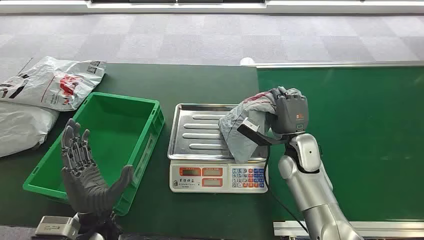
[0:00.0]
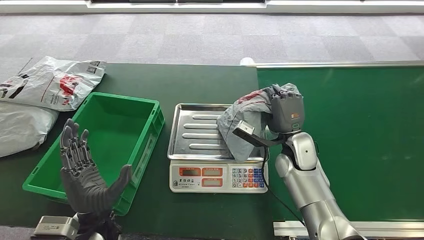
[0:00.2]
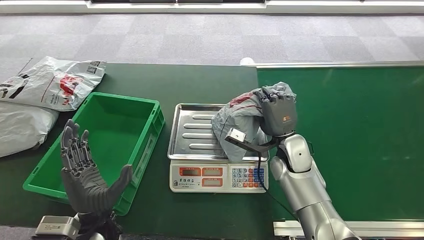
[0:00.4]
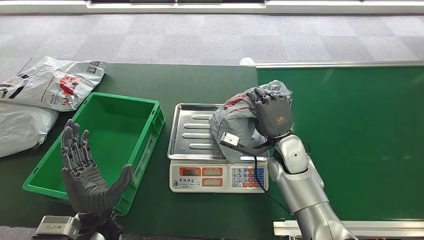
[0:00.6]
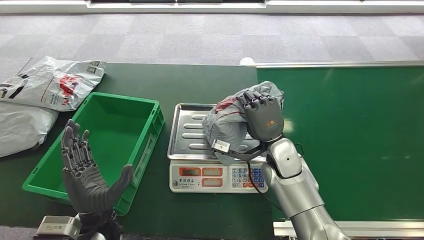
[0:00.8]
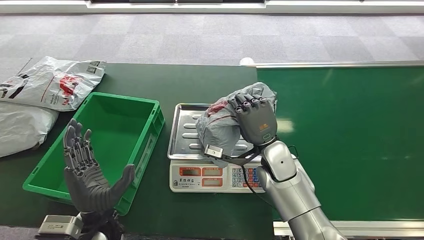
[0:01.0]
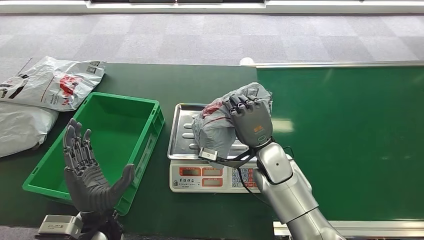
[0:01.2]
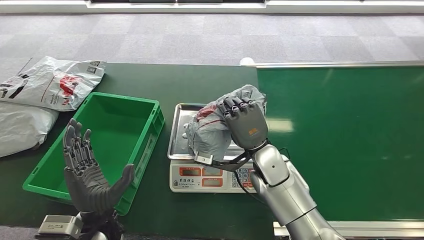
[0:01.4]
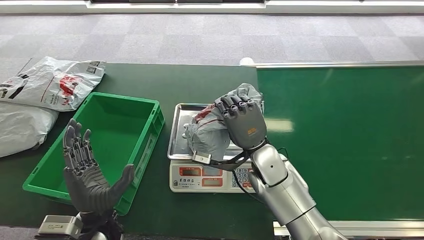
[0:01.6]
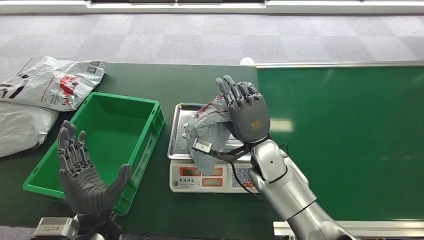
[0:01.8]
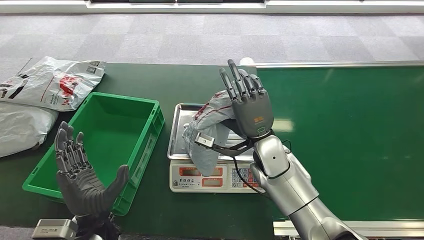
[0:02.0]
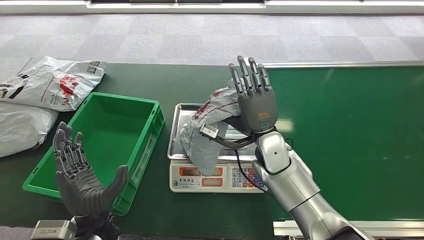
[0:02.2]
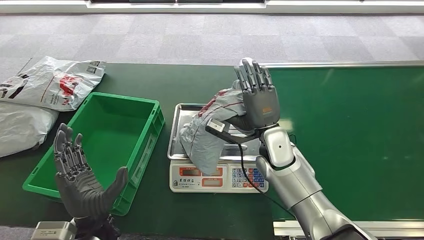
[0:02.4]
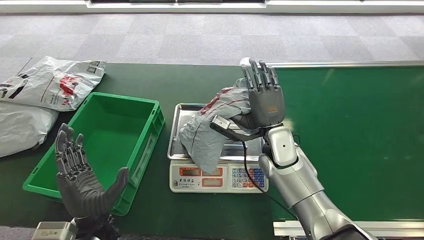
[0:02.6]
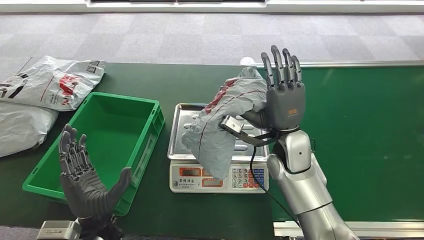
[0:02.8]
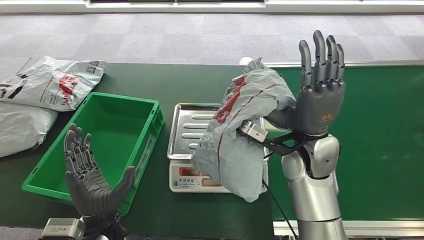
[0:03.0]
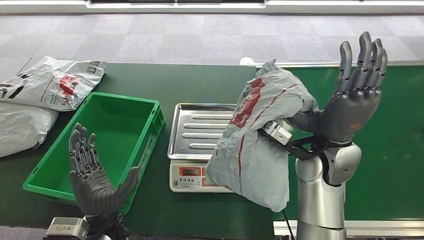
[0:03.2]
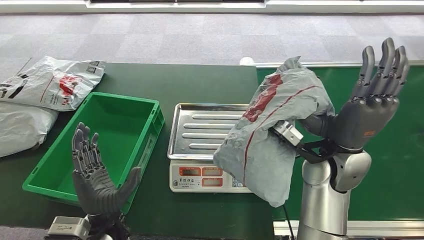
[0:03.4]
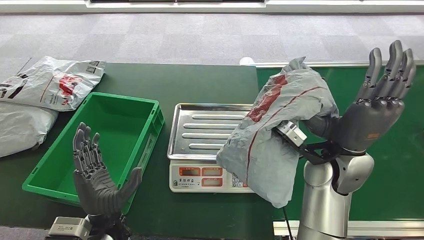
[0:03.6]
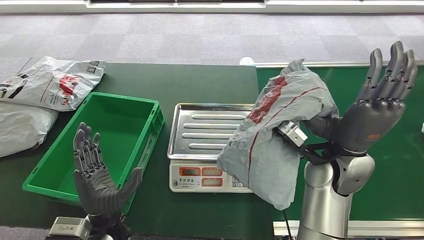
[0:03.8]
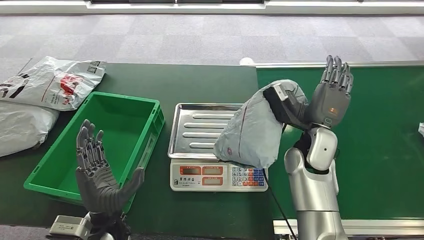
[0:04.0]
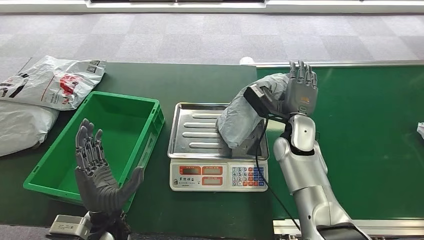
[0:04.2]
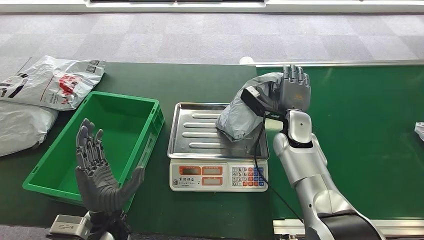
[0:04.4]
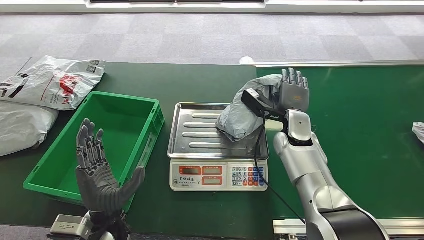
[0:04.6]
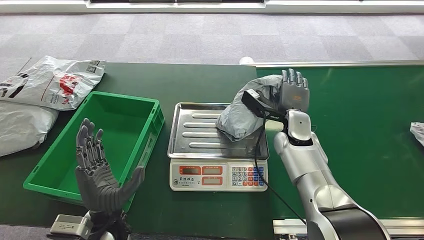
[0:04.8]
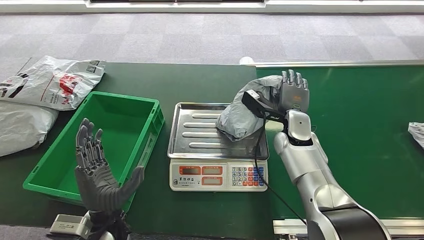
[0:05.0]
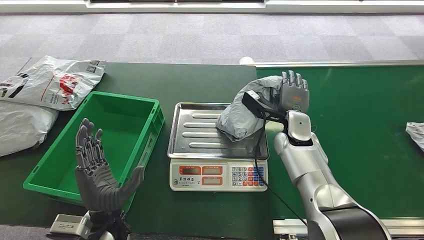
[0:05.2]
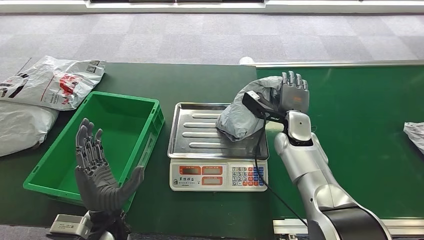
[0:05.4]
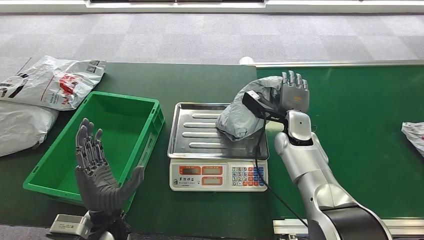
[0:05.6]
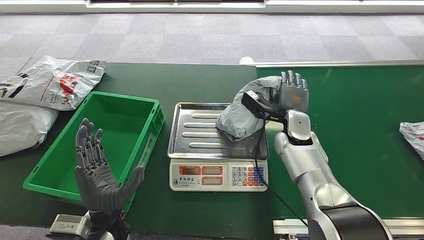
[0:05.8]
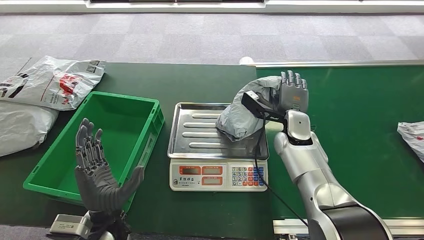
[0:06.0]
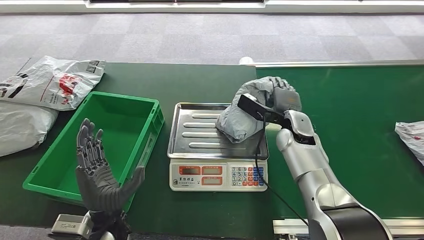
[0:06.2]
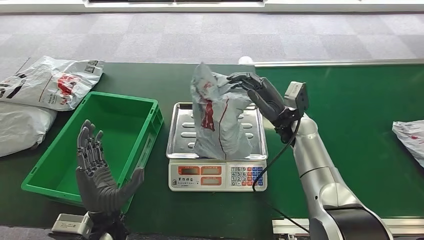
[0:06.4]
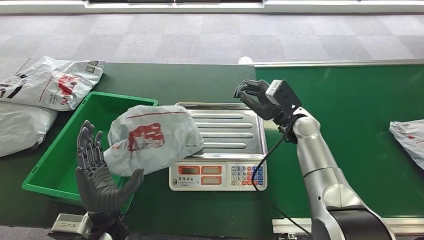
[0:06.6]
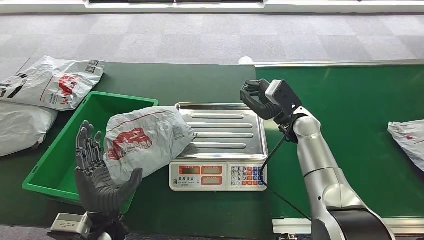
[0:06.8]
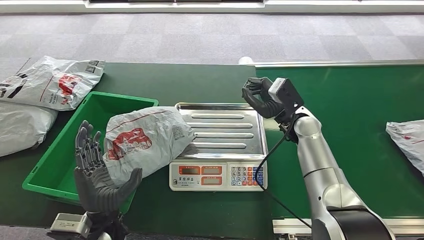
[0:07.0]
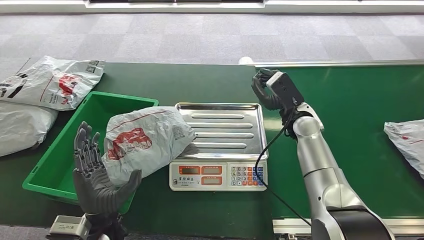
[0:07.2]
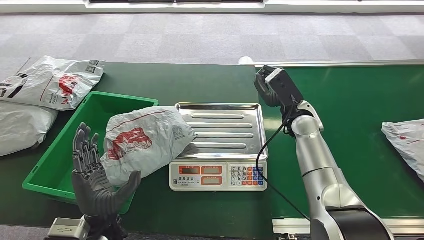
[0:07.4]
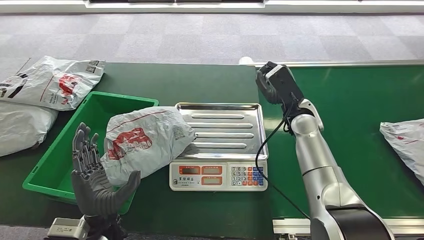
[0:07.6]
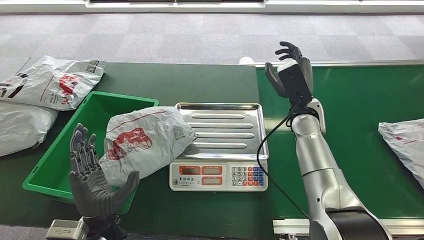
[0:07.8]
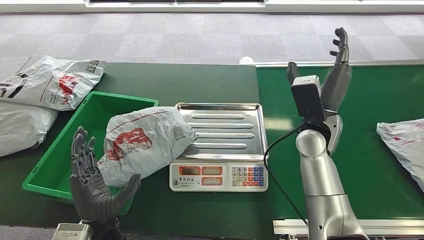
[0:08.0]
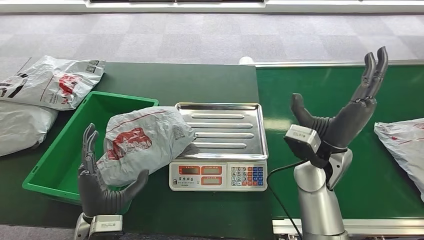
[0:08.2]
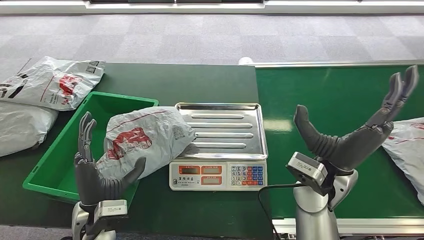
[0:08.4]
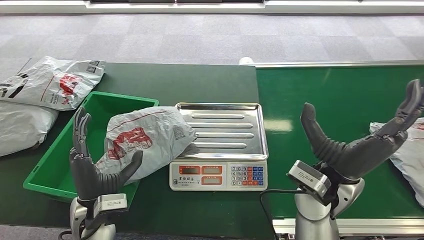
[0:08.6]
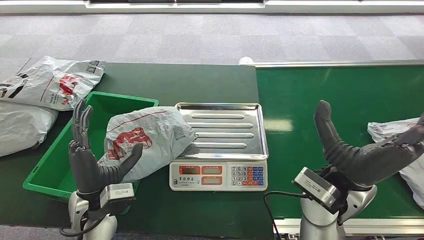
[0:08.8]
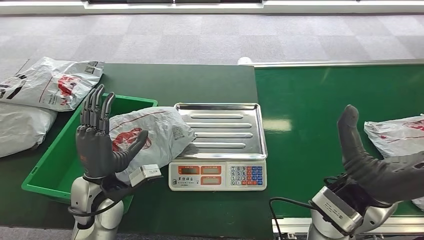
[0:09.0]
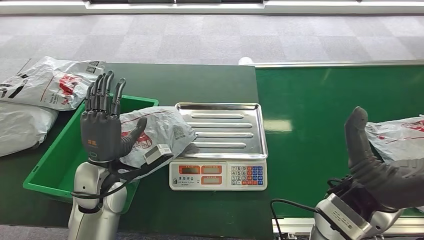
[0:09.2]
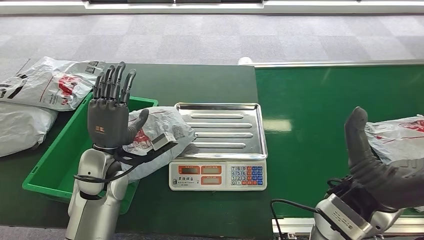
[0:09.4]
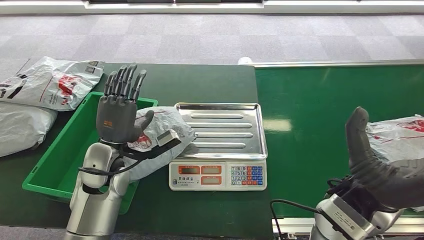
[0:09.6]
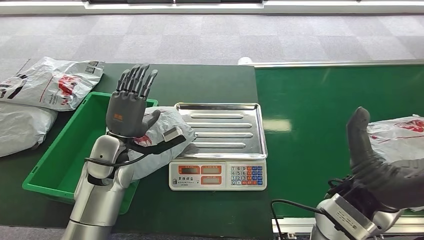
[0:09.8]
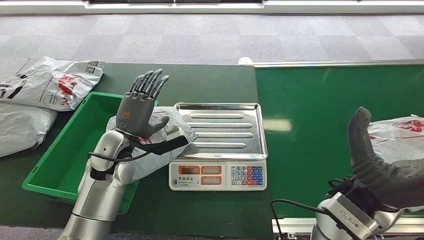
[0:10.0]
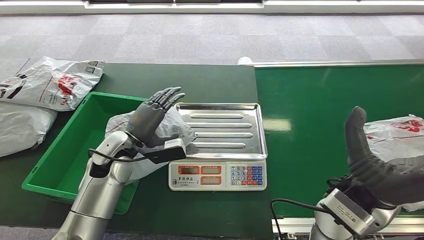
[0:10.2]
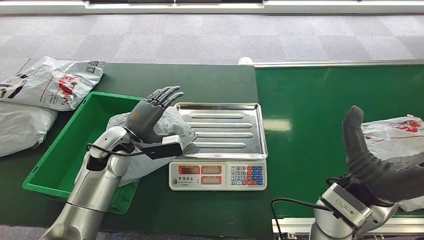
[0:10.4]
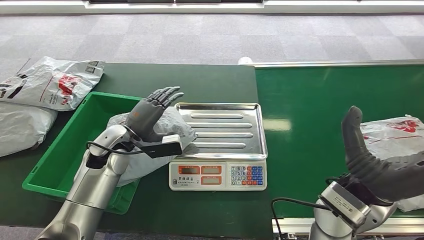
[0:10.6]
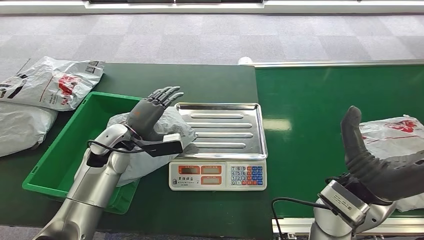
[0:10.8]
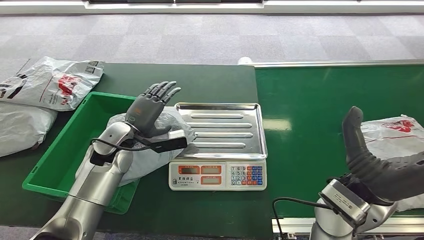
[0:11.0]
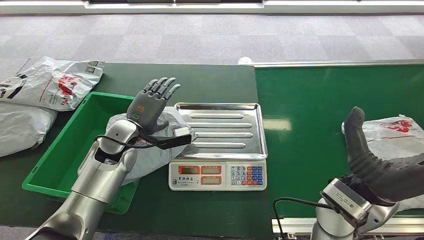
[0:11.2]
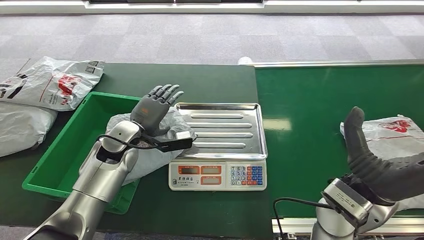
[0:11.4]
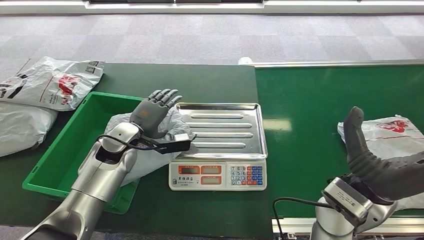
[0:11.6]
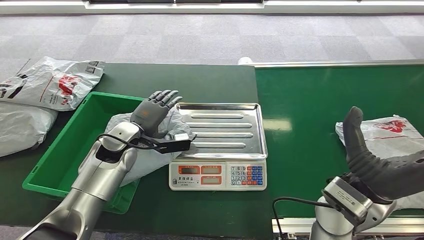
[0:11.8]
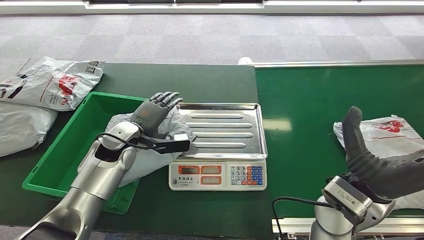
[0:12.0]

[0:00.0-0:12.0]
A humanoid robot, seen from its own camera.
Step, 0:00.4 to 0:07.2: Place the package onto the inbound machine.
0:01.6 to 0:03.0: The right hand heads upward and to the right, covering approximately 10 cm.
0:03.0 to 0:04.4: The right hand goes approximately 10 cm forward and downward.
0:04.4 to 0:06.0: The hands move only a little.
0:07.6 to 0:09.0: The right hand goes approximately 20 cm backward. Meanwhile the left hand goes about 5 cm forward.
0:09.0 to 0:10.4: The left hand heads forward, covering some 10 cm.

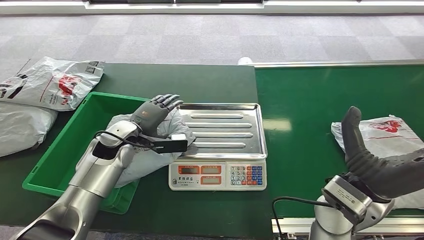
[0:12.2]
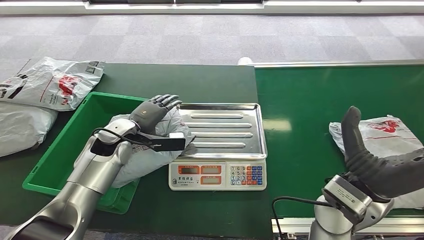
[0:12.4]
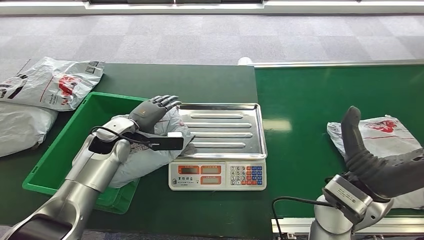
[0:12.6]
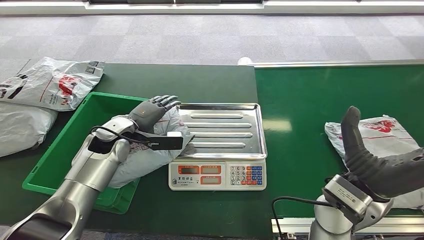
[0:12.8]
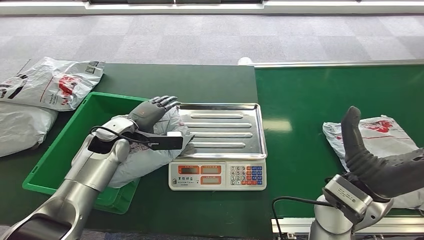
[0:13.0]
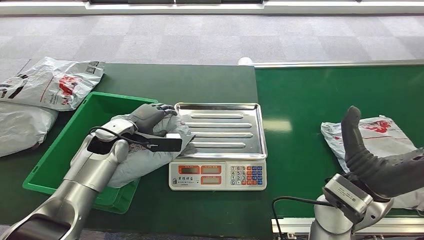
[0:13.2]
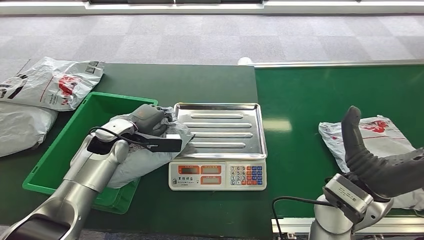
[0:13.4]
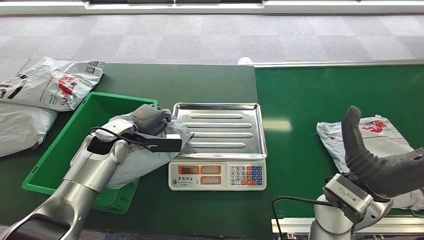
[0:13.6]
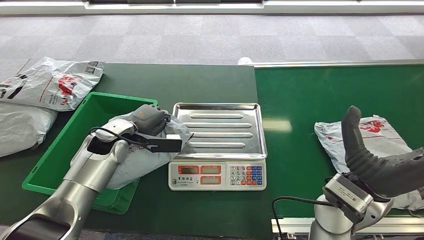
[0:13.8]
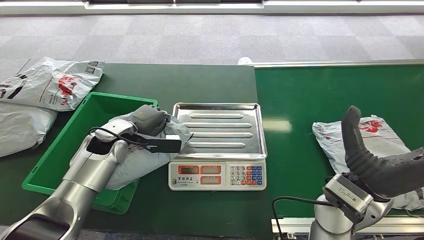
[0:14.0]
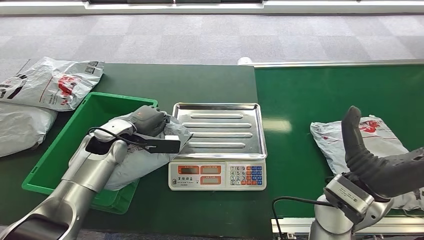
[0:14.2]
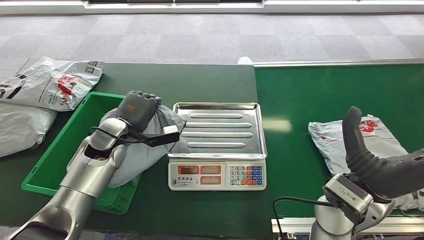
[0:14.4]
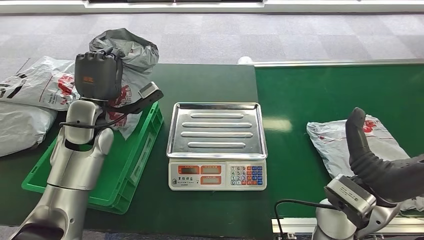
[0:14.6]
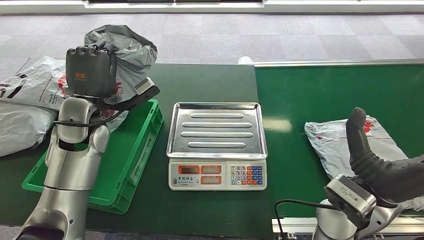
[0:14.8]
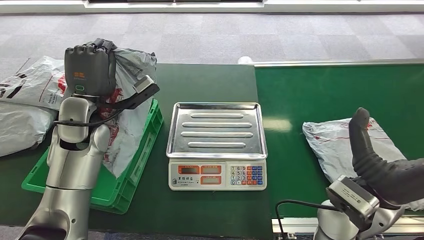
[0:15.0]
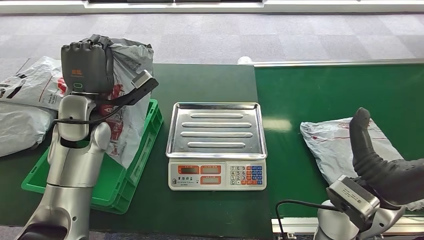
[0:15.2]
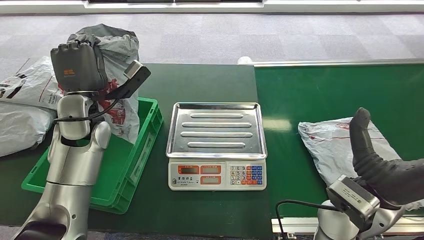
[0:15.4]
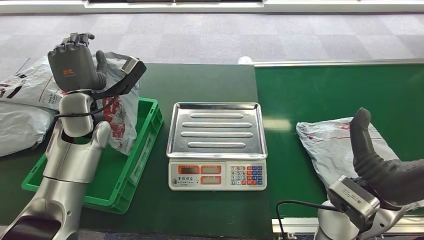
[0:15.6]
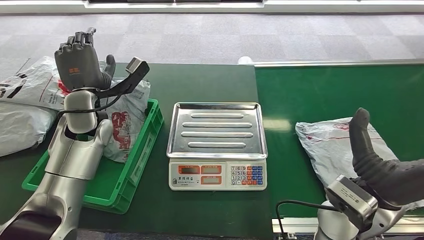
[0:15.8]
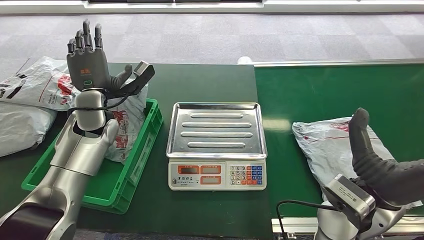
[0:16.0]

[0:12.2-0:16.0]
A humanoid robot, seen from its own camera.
Step, 0:12.2 to 0:15.0: Pick up the package from the inbound machine.
Step, 0:15.2 to 0:16.0: Place the package into the parcel locker.
0:12.2 to 0:13.4: There are only small adjustments of the hands.
